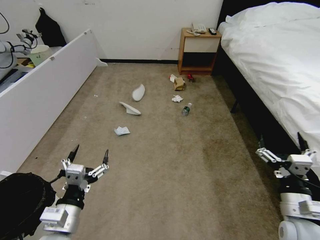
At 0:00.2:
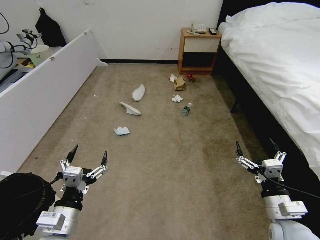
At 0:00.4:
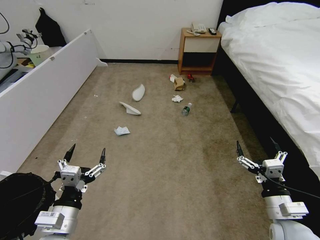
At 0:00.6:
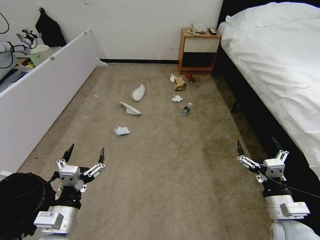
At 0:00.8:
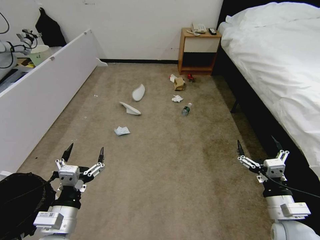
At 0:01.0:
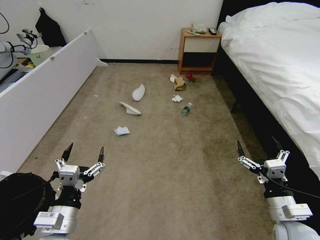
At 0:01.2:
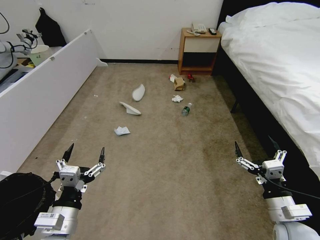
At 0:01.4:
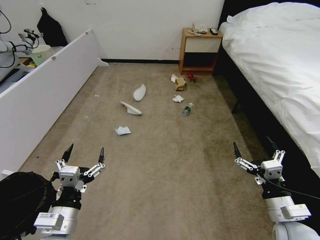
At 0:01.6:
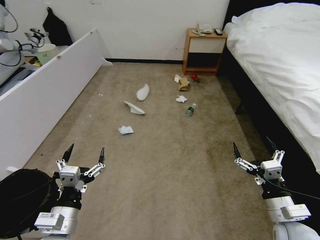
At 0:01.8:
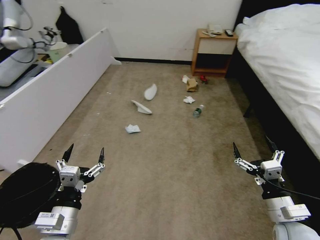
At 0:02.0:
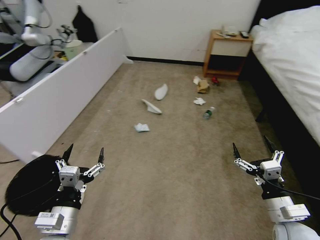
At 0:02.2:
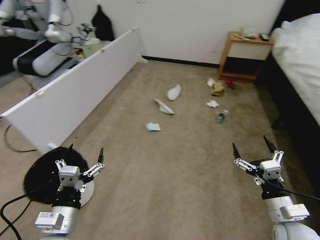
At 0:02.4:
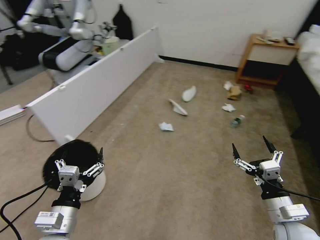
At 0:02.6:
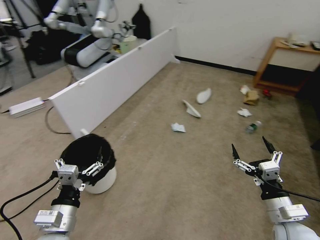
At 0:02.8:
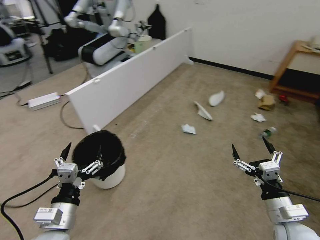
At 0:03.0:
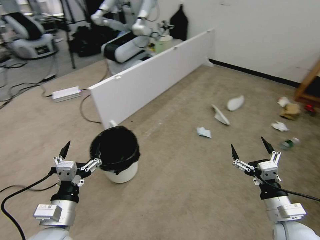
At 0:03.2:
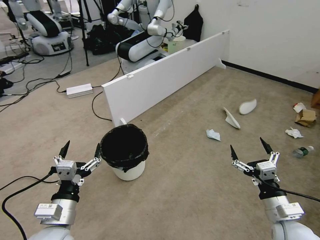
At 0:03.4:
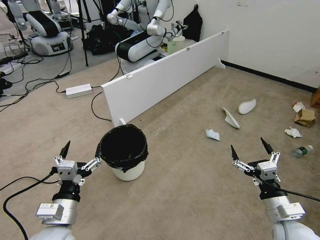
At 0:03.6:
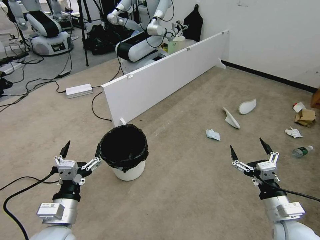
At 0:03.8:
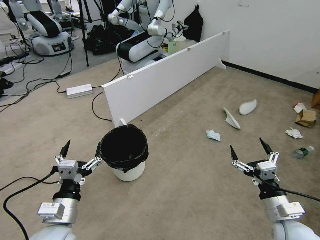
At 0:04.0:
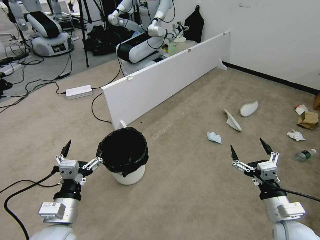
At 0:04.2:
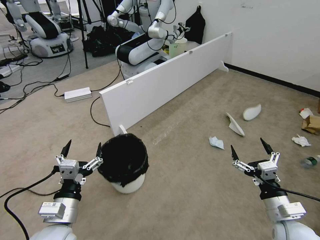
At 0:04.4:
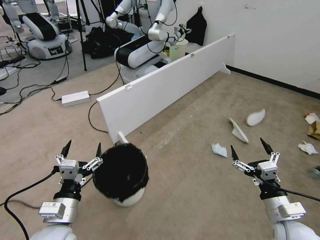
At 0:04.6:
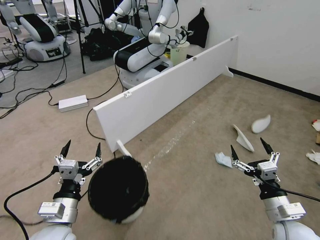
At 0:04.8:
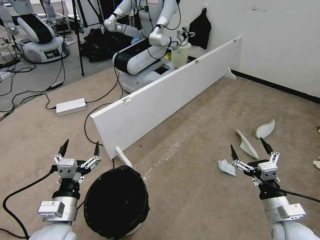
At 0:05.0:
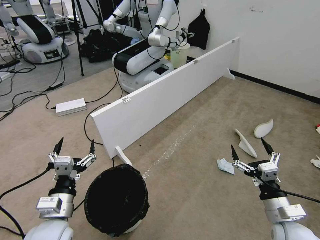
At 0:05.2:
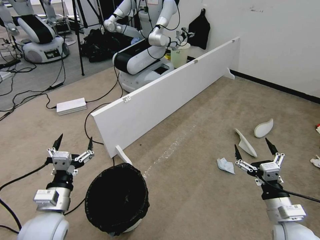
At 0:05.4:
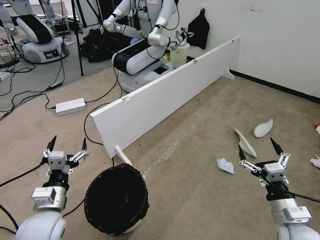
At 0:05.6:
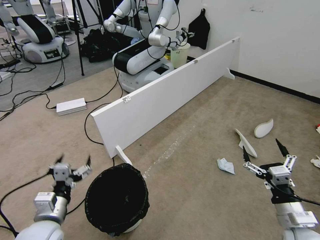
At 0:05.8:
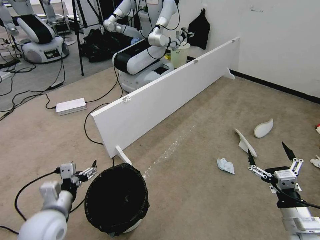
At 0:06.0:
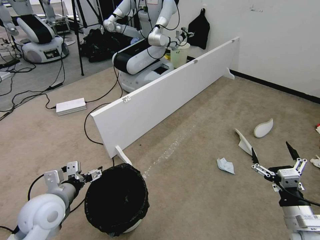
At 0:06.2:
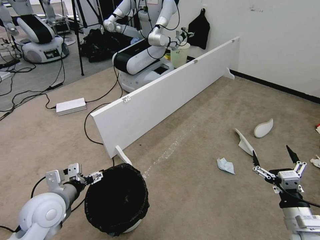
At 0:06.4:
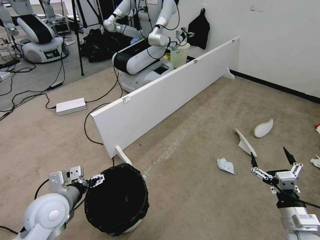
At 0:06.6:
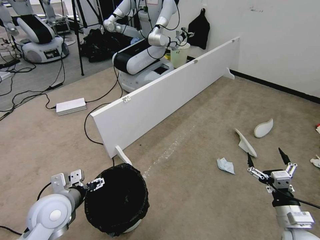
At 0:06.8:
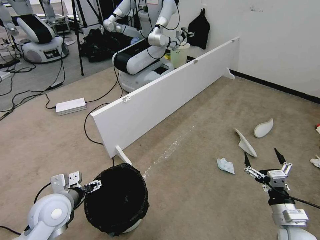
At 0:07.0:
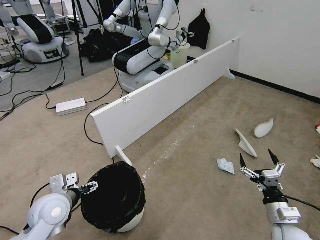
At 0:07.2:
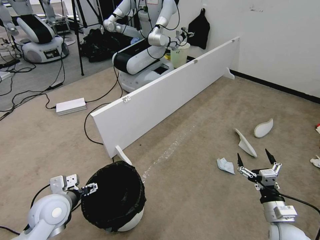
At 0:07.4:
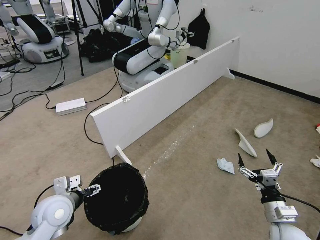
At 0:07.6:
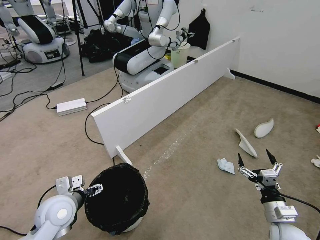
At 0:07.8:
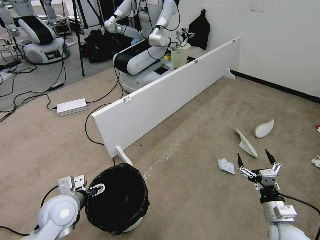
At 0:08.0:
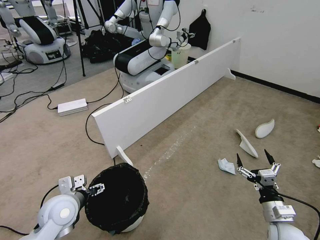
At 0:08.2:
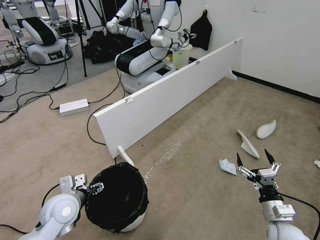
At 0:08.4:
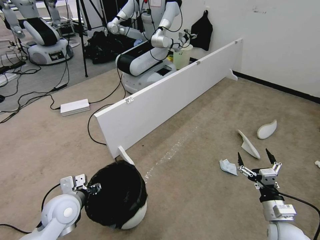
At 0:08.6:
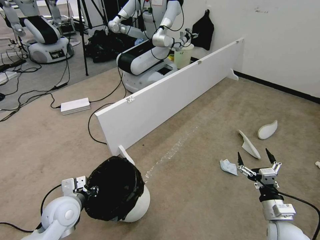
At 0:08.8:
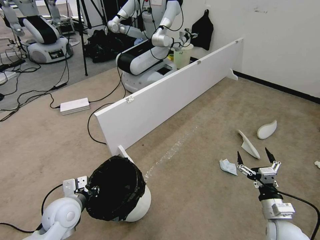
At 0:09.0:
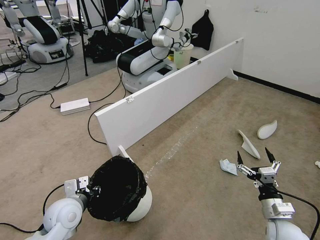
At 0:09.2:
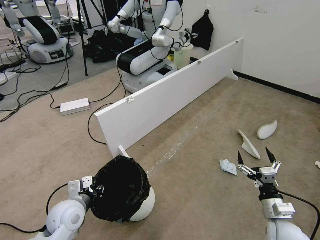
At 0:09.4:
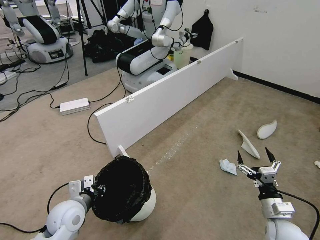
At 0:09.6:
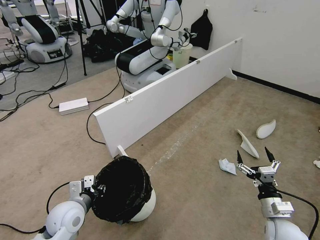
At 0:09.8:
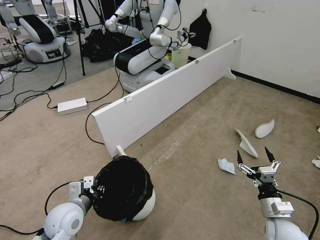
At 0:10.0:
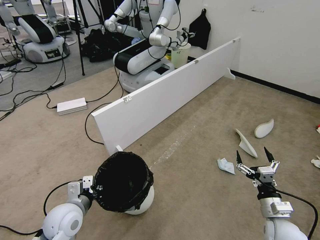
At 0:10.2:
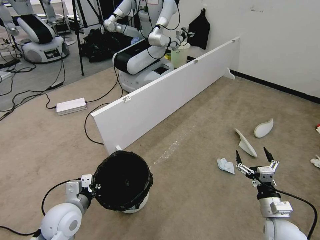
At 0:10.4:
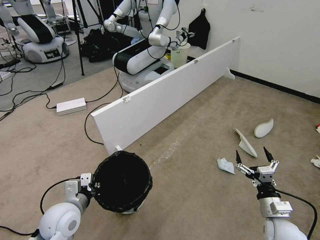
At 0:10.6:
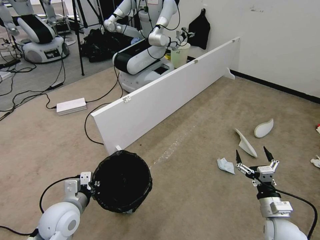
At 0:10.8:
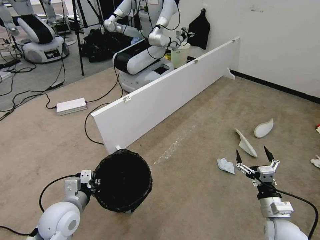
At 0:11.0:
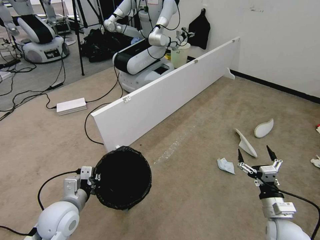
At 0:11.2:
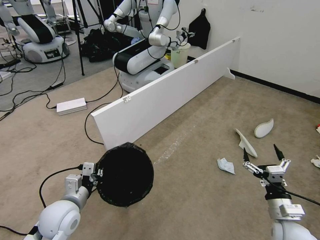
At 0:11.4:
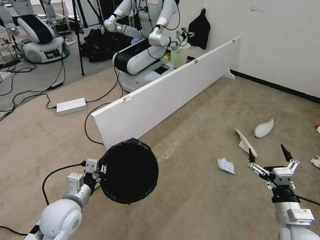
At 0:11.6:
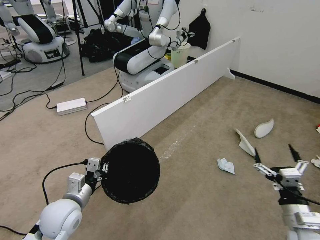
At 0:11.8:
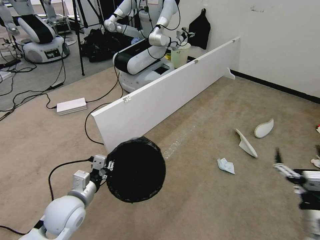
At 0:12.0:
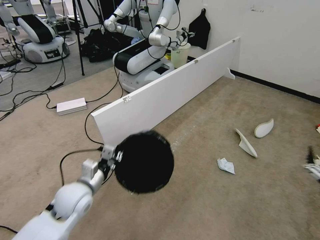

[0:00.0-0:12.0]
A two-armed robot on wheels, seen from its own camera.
Task of the whole recording: Pick up the trash bin, then pick up the garbage from the floor and place it into the trash bin.
0:04.4 to 0:06.0: The left gripper goes approximately 5 cm forward.
0:06.0 to 0:07.6: The right gripper goes approximately 5 cm downward.
0:07.6 to 0:09.0: The left gripper closes.
0:10.4 to 0:12.0: The left gripper changes place by roughly 5 cm. Meanwhile the right gripper travels upward, backward and to the right by approximately 15 cm.

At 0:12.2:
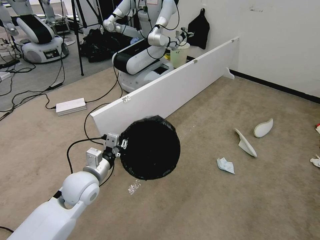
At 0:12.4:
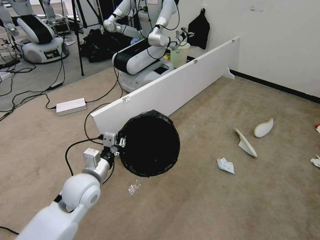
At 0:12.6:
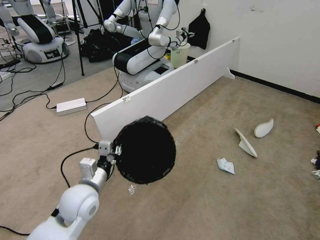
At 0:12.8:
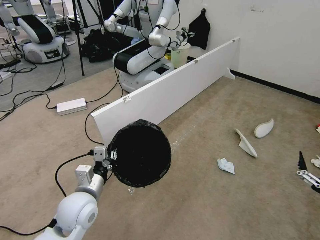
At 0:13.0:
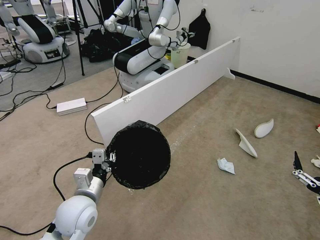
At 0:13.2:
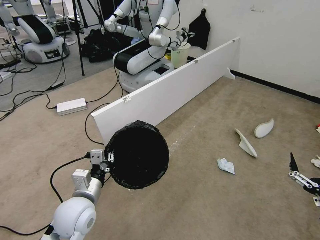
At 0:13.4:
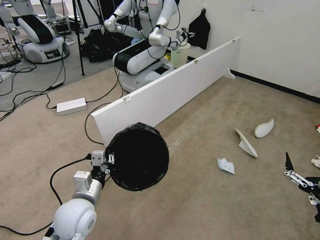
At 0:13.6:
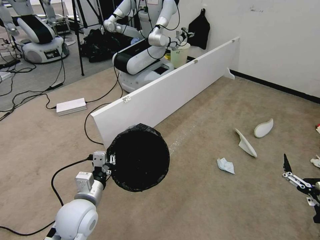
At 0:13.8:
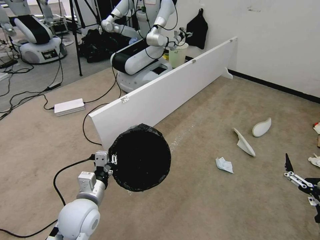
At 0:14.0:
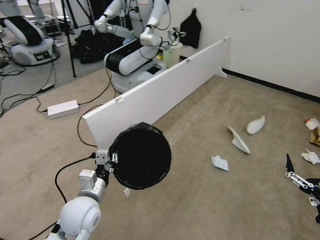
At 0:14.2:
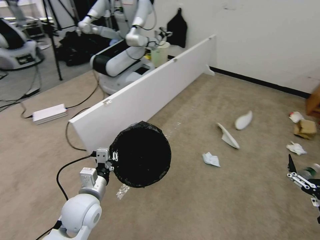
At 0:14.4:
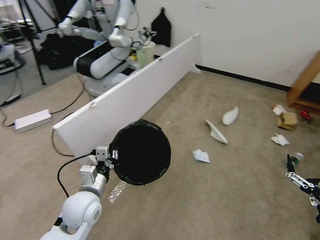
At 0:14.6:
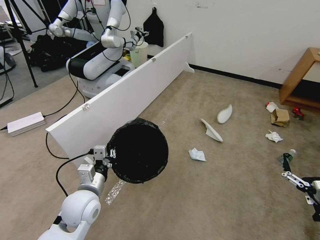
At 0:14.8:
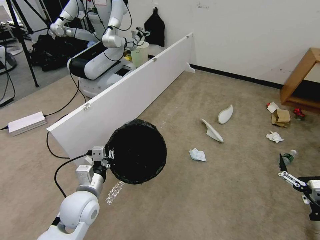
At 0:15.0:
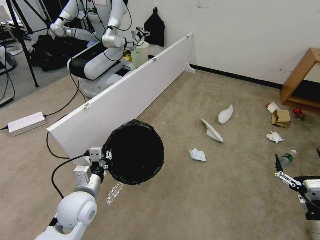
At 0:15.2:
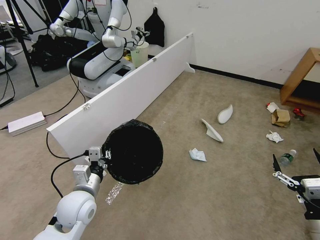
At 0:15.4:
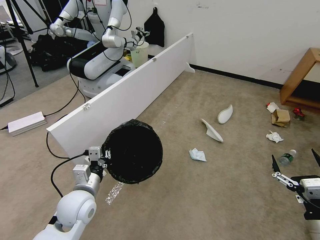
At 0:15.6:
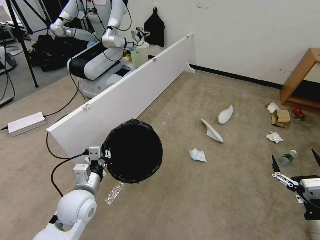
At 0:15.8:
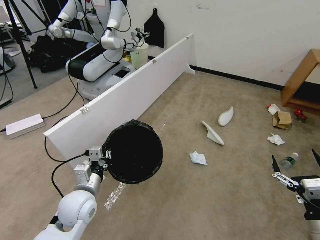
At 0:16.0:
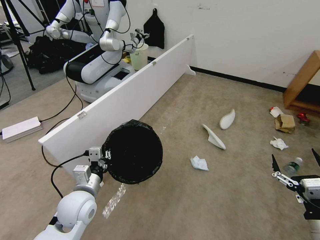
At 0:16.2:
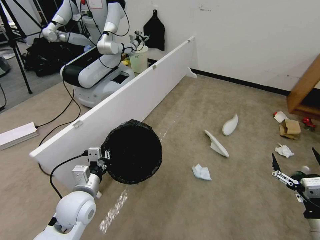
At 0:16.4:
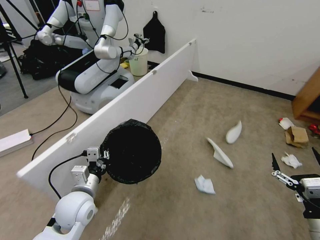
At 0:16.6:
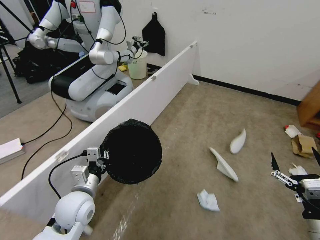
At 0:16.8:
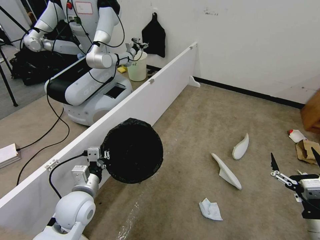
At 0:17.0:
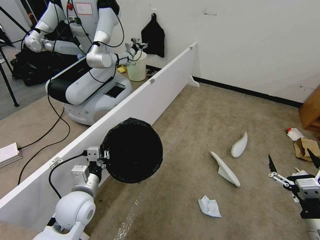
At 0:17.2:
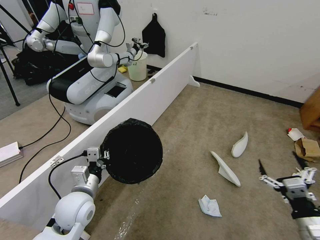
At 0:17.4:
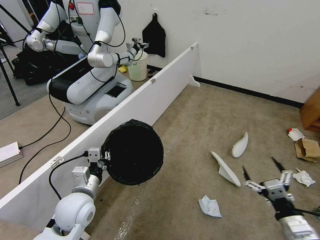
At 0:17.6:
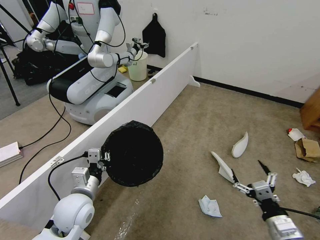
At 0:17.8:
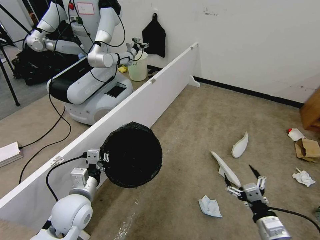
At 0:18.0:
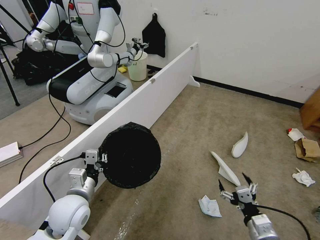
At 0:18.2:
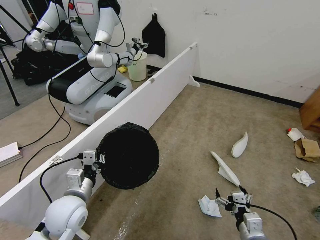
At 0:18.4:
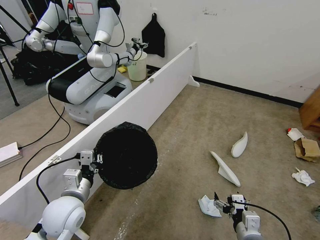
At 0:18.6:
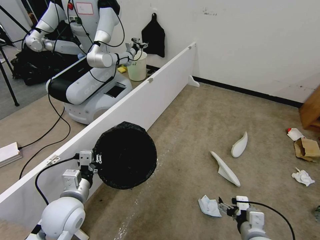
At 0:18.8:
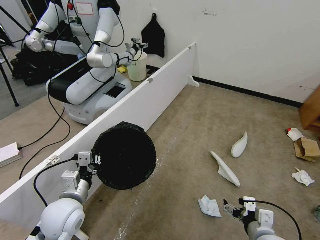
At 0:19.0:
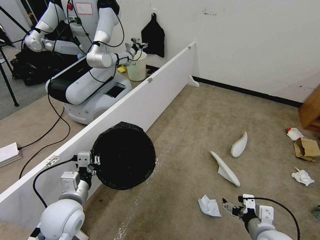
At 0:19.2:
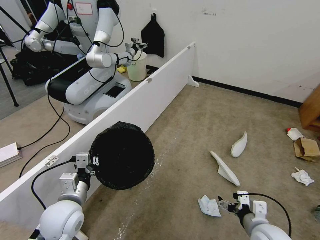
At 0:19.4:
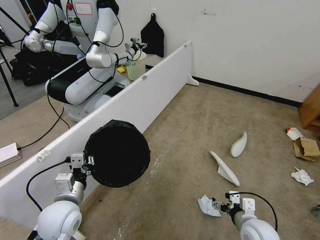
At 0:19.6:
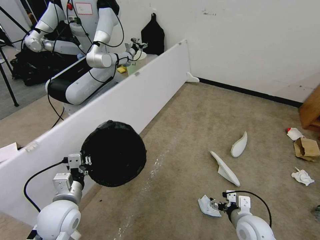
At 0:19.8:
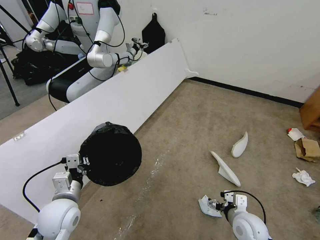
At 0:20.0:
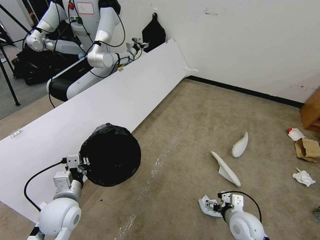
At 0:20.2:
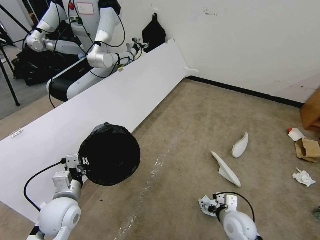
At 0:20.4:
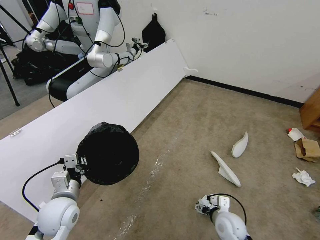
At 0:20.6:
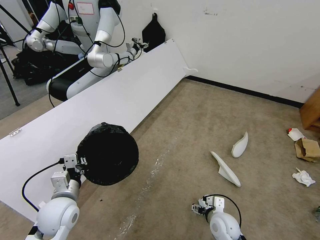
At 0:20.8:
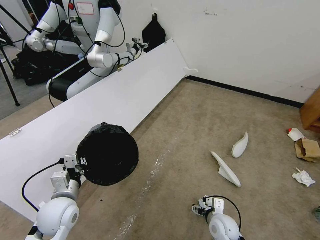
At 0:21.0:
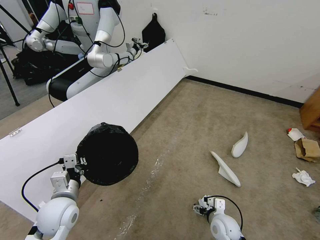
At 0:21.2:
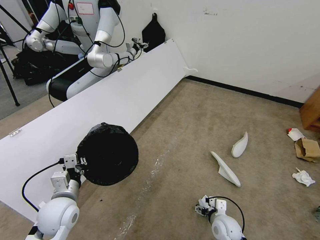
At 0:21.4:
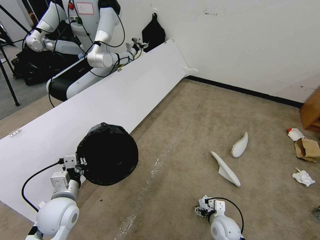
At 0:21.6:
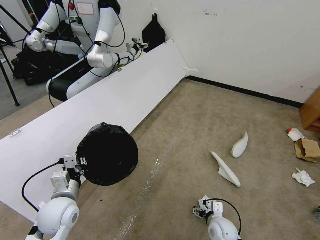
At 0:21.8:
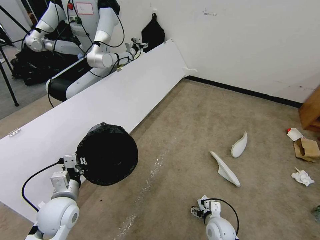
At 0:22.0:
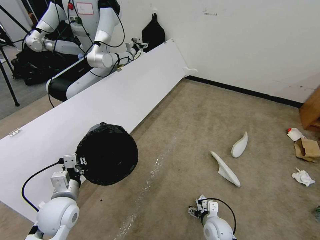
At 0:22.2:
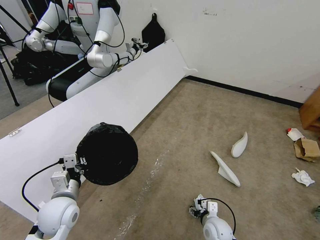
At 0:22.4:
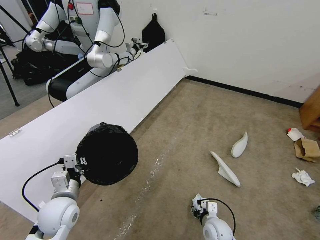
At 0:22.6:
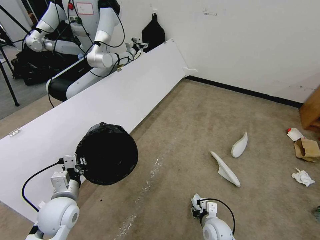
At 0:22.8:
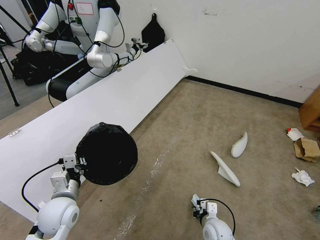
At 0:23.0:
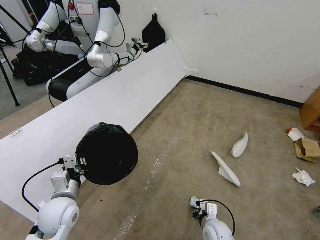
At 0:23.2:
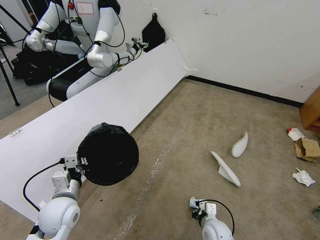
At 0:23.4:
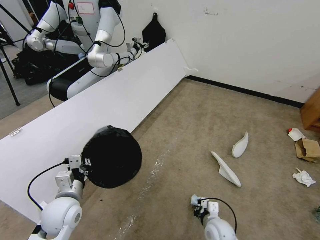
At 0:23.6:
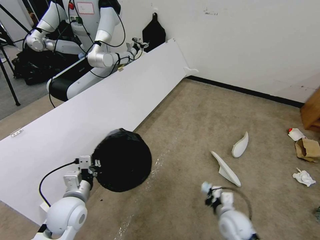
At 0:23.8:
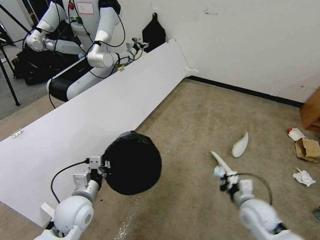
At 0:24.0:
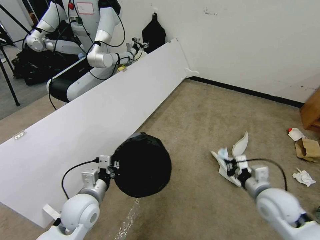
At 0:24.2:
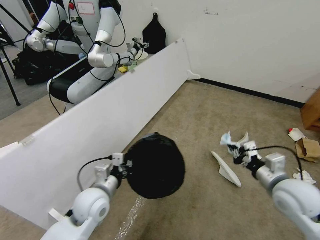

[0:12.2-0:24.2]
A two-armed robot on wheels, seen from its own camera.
Task of the whole recording: Pick up the trash bin, then pick up the garbage from the floor and place it into the trash bin.
0:12.2 to 0:13.8: The left gripper heads backward, covering some 5 cm.
0:16.6 to 0:18.2: The right gripper travels to the left and downward by some 15 cm.
0:18.2 to 0:19.8: The right gripper is displaced forward by roughly 10 cm.
0:19.8 to 0:21.2: The right gripper is displaced downward by about 10 cm.
0:21.2 to 0:22.6: The right gripper closes.
0:22.6 to 0:24.2: The left gripper shifts roughly 10 cm to the right, while the right gripper travels upward and to the right by about 30 cm, and closes.
